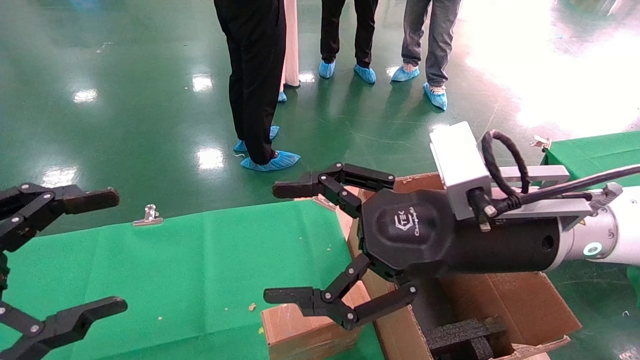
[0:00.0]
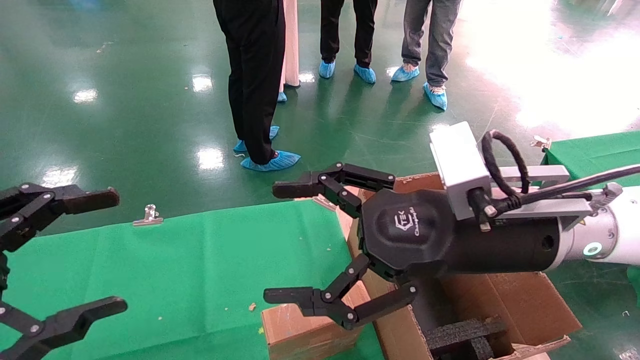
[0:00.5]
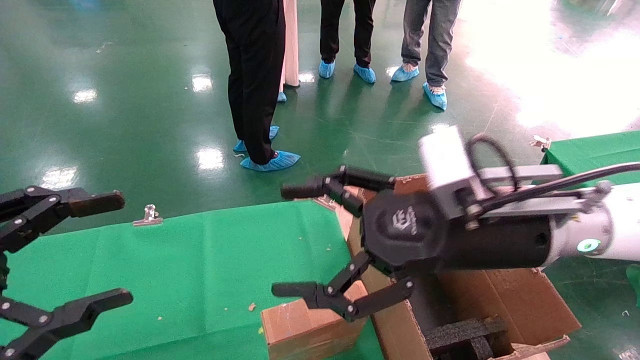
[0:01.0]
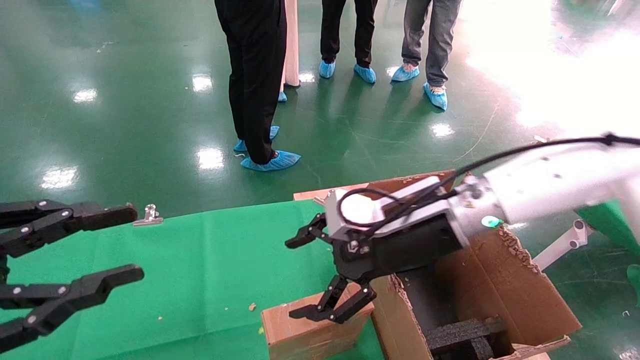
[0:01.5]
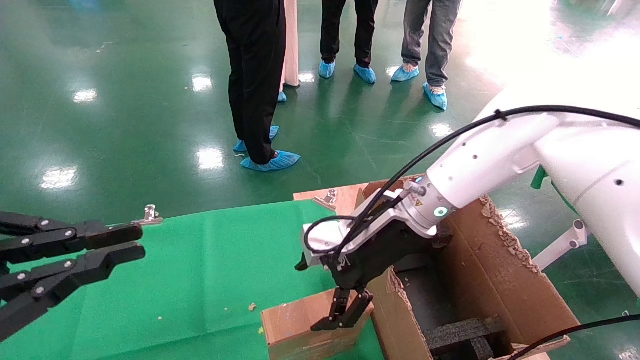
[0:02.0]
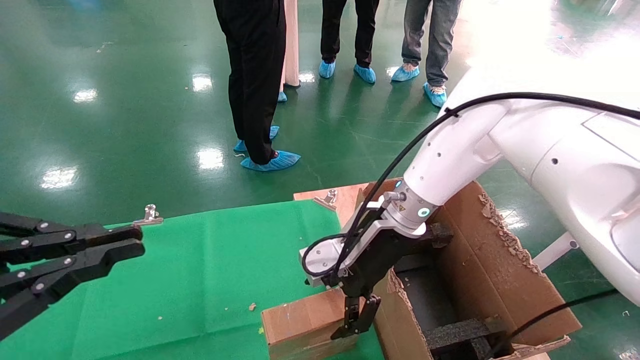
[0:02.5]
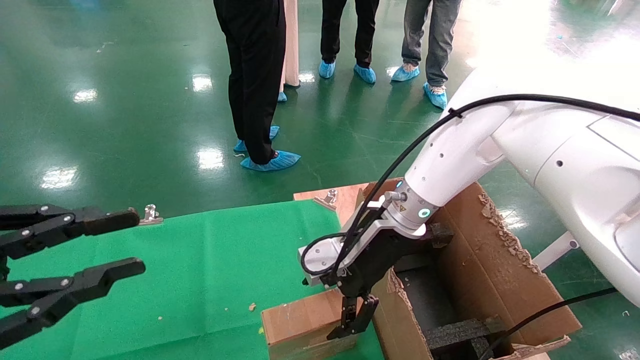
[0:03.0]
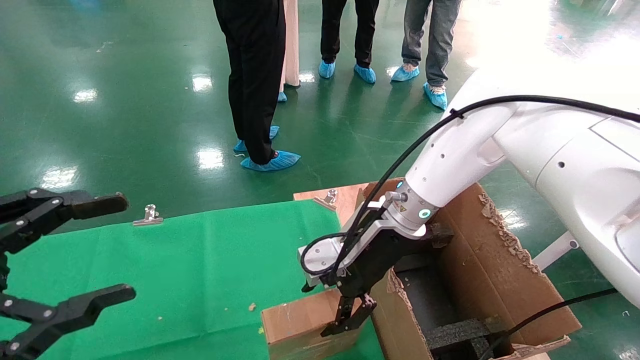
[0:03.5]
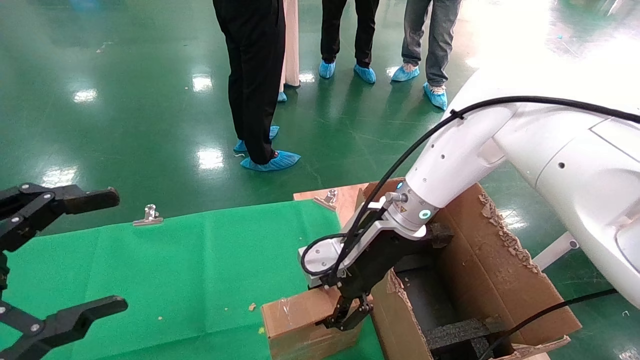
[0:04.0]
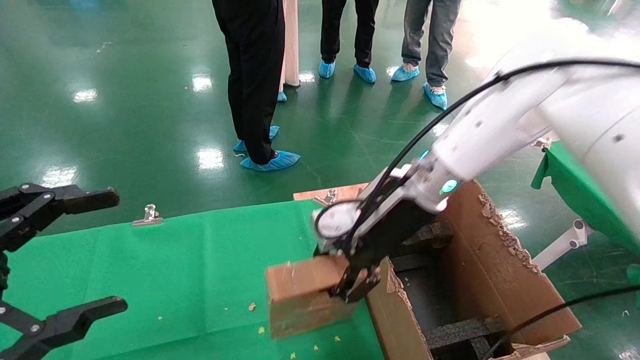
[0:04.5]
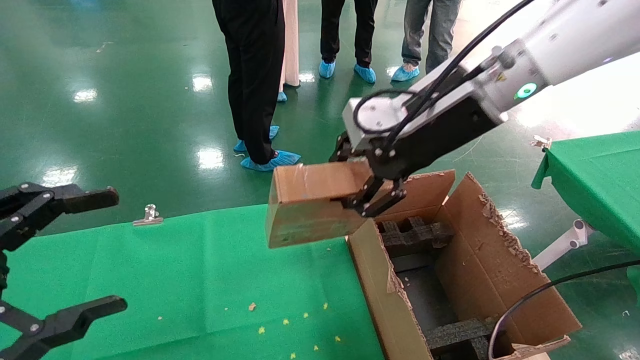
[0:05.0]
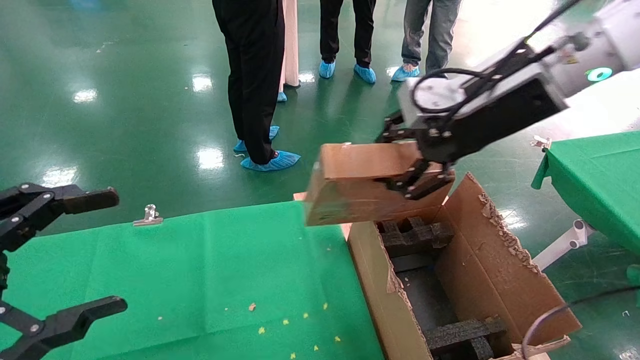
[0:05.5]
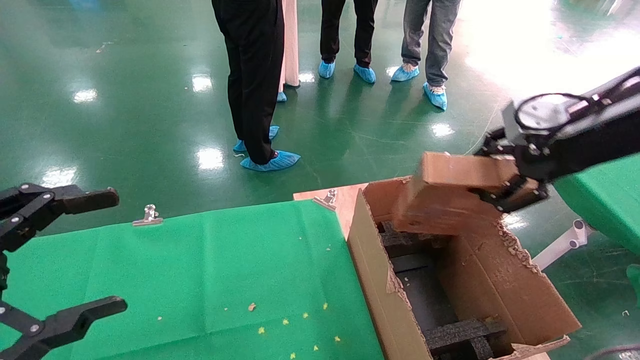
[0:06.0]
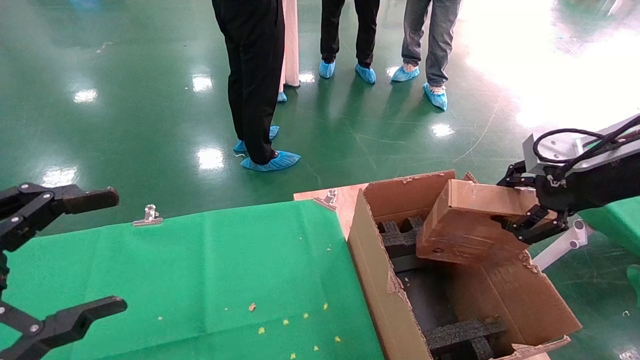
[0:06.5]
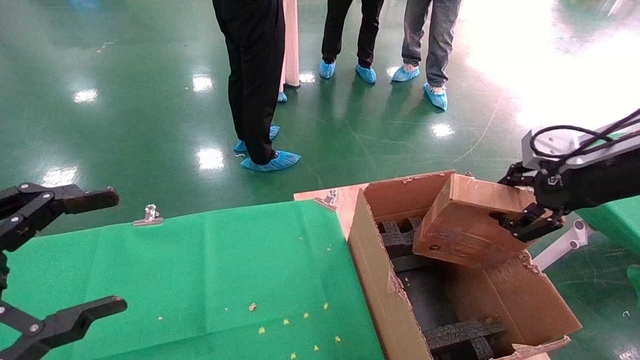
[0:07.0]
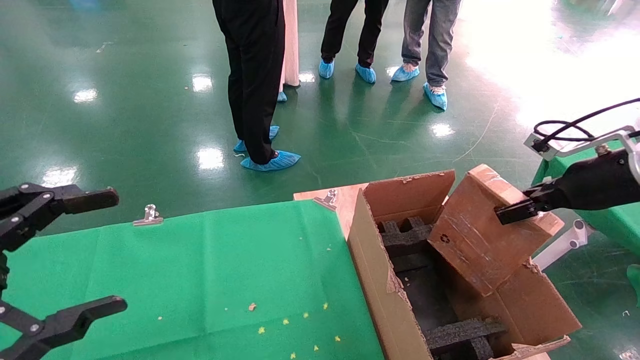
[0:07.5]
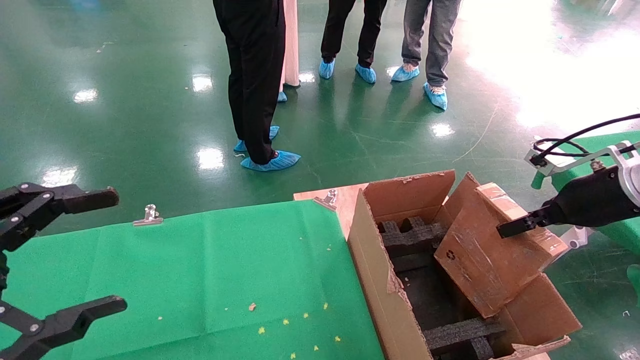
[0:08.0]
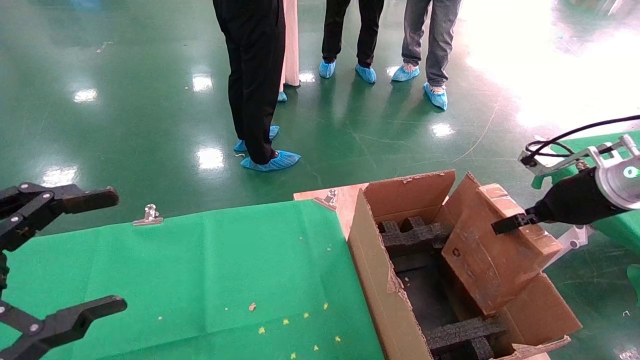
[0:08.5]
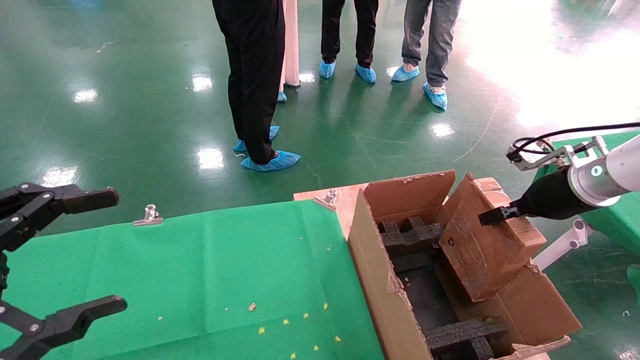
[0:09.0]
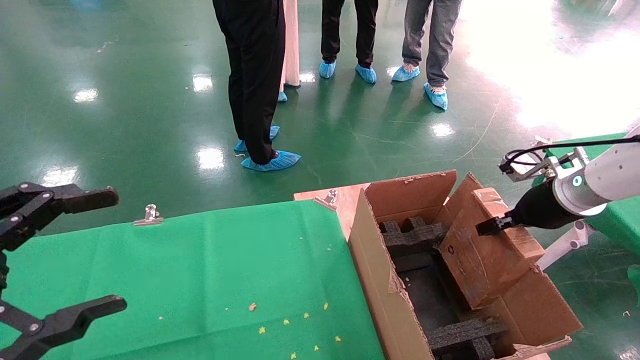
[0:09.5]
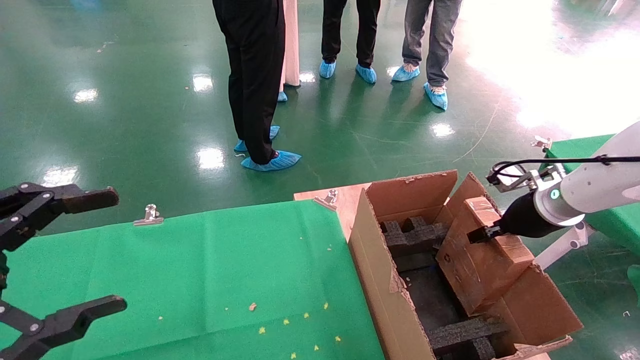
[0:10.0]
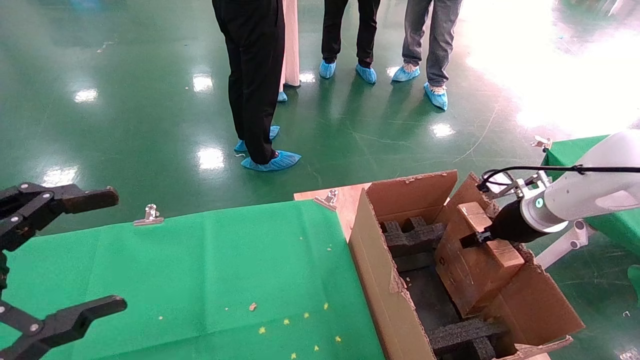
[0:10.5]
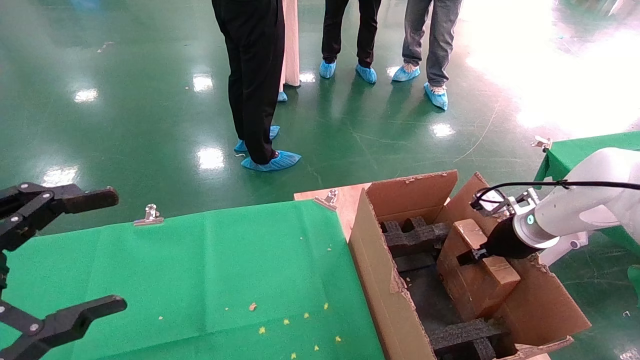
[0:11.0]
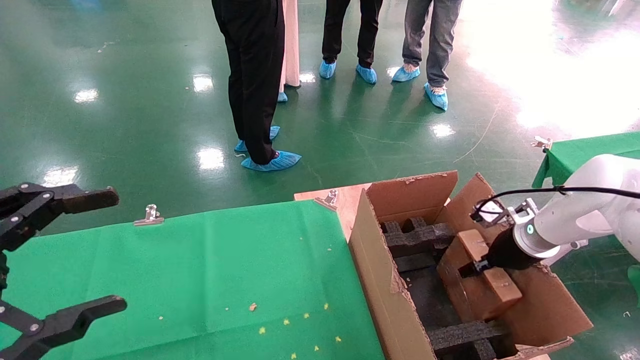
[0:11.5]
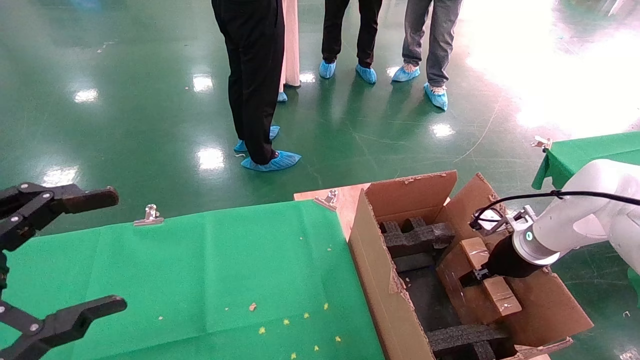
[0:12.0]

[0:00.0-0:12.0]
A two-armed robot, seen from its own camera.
Task of the whole recording: using a robotic arm to pick up a cardboard box and palace it the carton.
Step, 0:01.5 to 0:03.5: Pick up the mouse and the power cord paper box.
0:00.0 to 0:02.0: The left gripper closes, while the right gripper moves forward, roughly 15 cm.
0:02.0 to 0:04.0: The left gripper opens up. The right gripper closes its fingers.
0:04.0 to 0:06.0: The right gripper heads to the right, upward and backward, covering roughly 30 cm.
0:06.0 to 0:08.0: The right gripper travels downward and to the right by approximately 15 cm.
0:08.0 to 0:10.0: The right gripper heads forward and downward, covering roughly 10 cm.
0:10.0 to 0:12.0: The right gripper is displaced downward by about 10 cm.

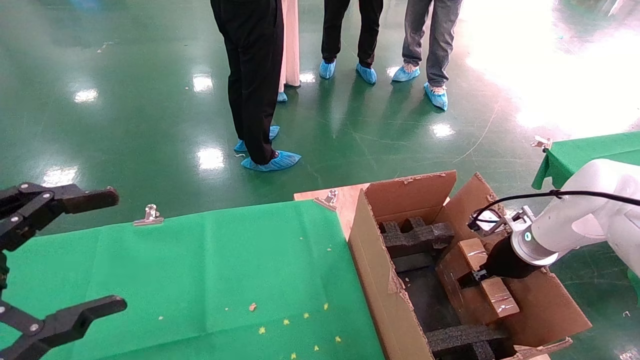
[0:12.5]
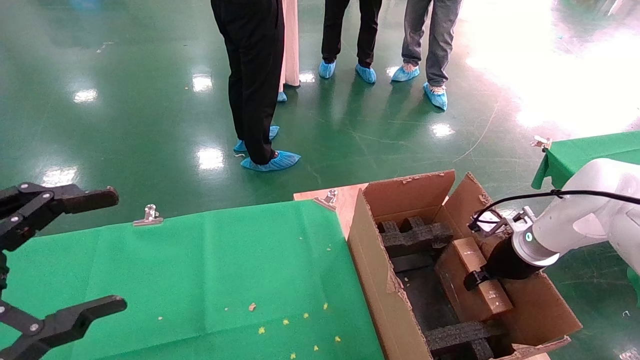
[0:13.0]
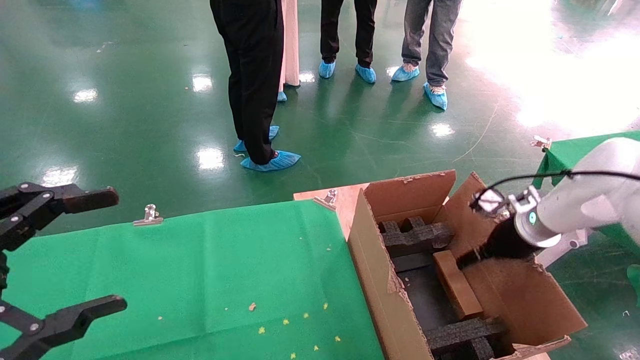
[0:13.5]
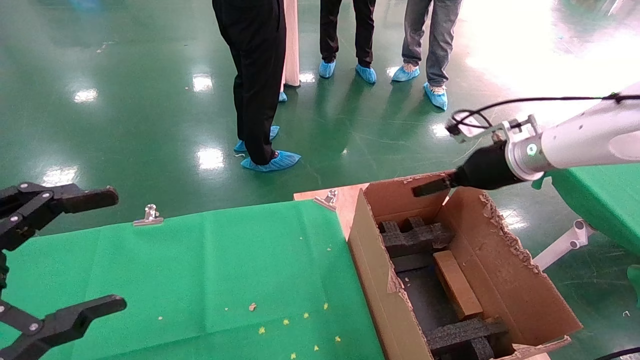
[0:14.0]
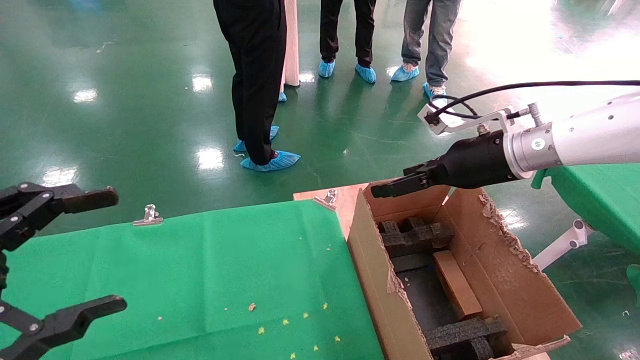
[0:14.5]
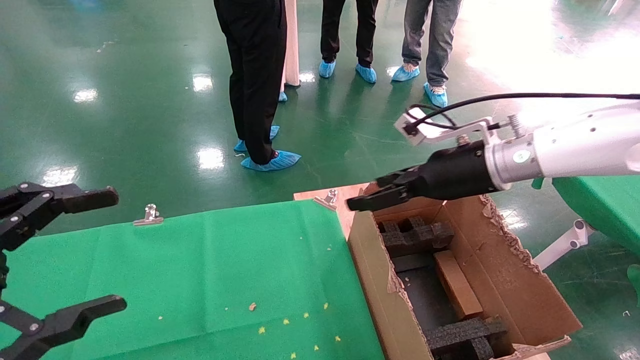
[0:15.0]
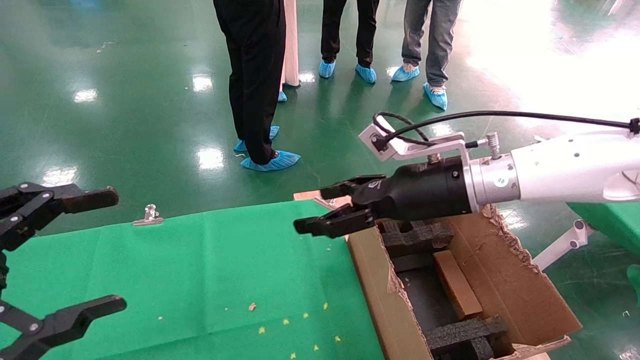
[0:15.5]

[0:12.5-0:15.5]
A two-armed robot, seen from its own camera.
Task of the whole recording: using a robotic arm to pick up a cardboard box and palace it the carton.
0:12.5 to 0:14.0: The right gripper shifts about 15 cm upward, and opens its fingers.
0:14.0 to 0:15.5: The right gripper shifts about 15 cm to the left and backward.
